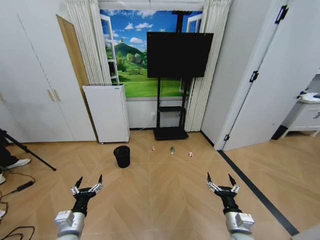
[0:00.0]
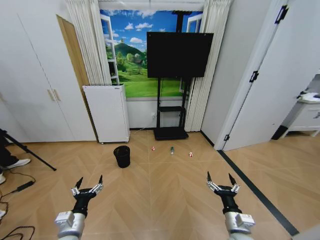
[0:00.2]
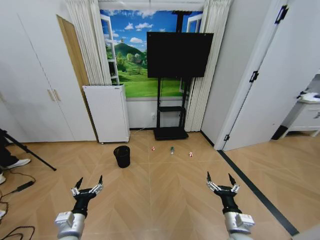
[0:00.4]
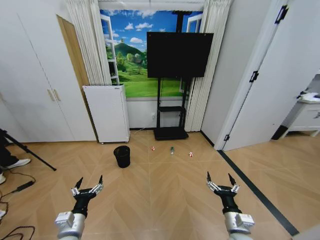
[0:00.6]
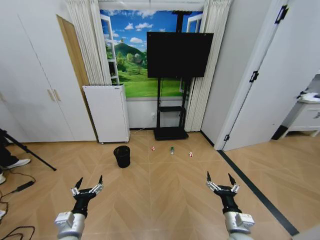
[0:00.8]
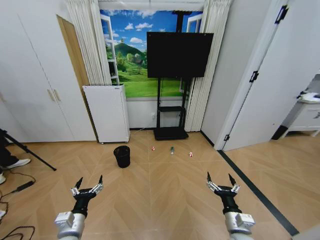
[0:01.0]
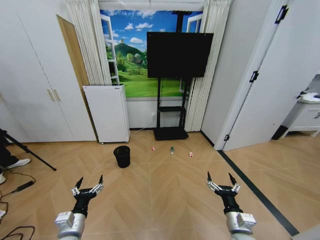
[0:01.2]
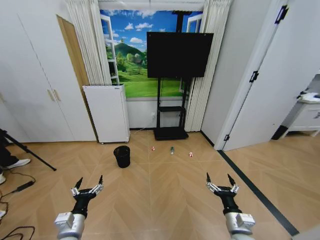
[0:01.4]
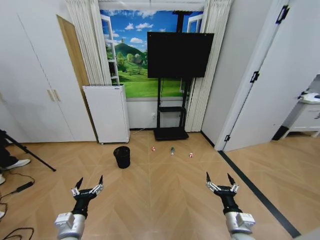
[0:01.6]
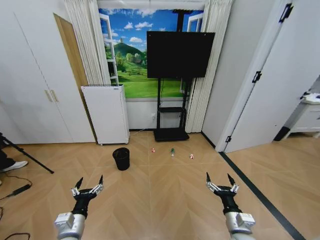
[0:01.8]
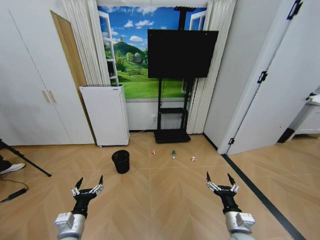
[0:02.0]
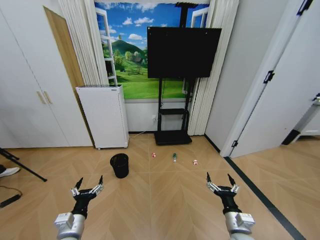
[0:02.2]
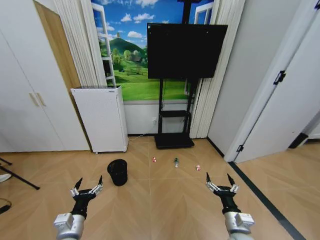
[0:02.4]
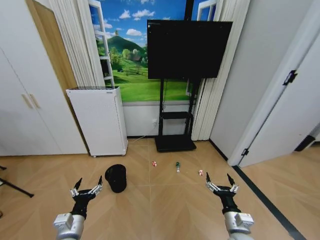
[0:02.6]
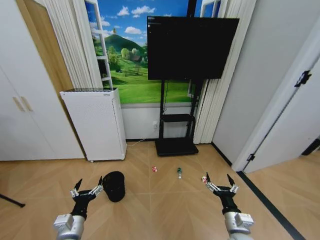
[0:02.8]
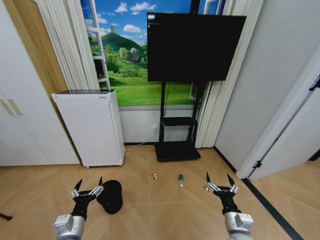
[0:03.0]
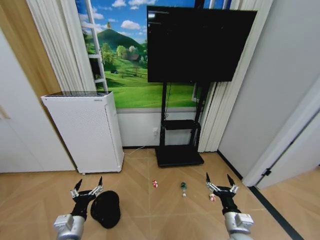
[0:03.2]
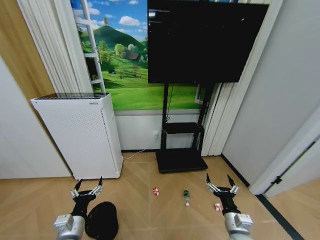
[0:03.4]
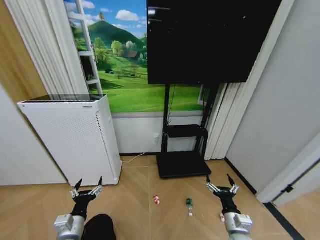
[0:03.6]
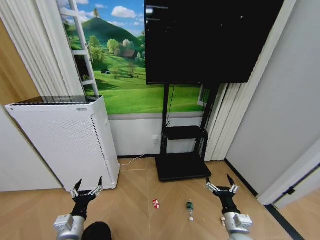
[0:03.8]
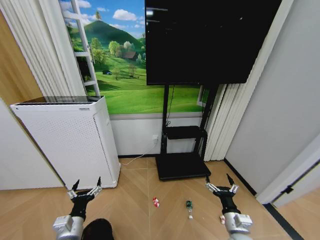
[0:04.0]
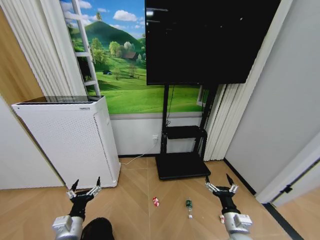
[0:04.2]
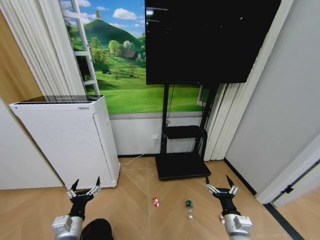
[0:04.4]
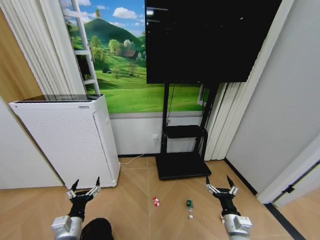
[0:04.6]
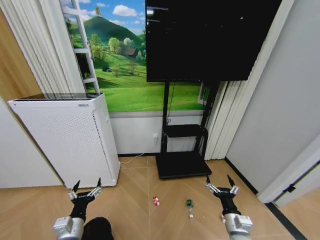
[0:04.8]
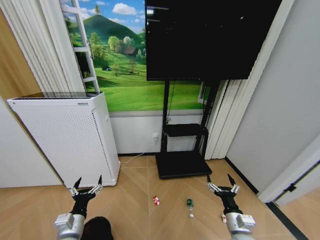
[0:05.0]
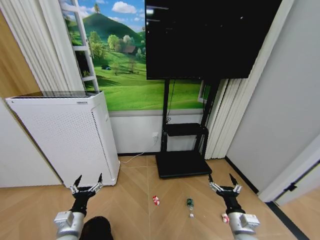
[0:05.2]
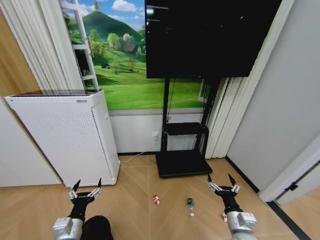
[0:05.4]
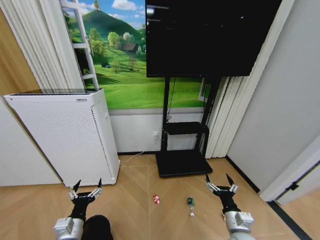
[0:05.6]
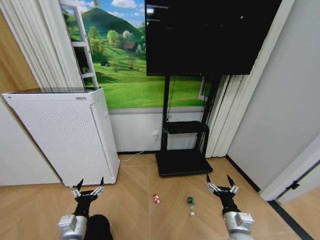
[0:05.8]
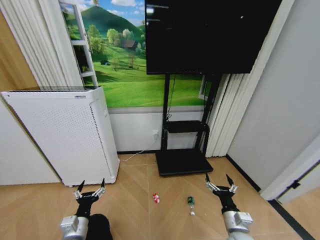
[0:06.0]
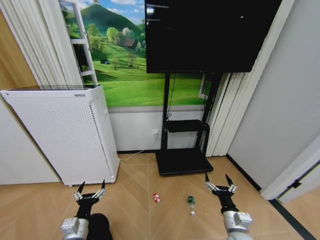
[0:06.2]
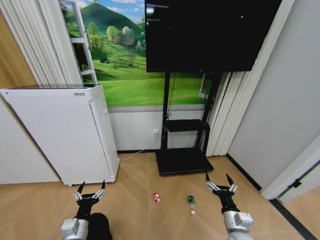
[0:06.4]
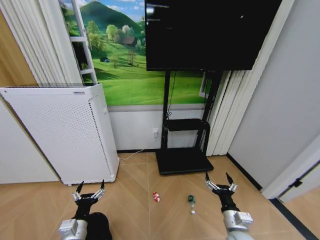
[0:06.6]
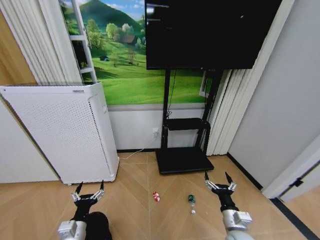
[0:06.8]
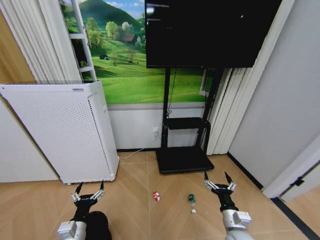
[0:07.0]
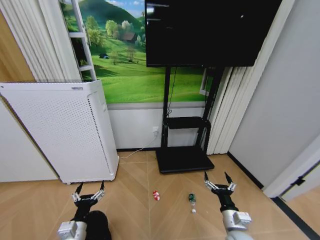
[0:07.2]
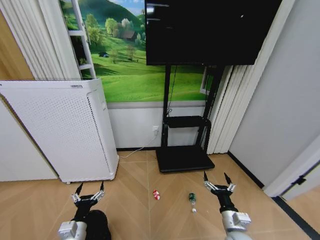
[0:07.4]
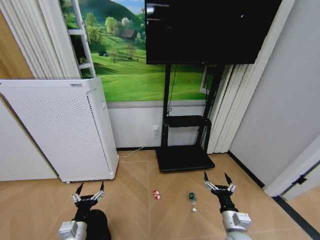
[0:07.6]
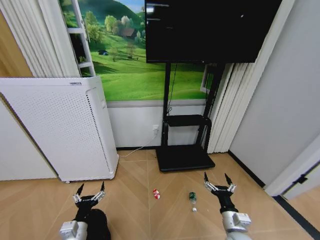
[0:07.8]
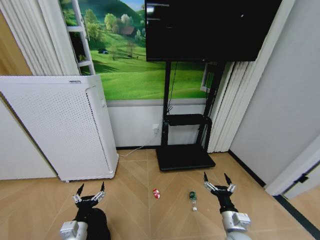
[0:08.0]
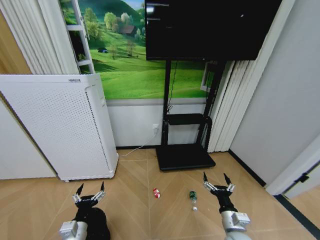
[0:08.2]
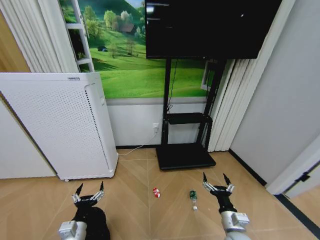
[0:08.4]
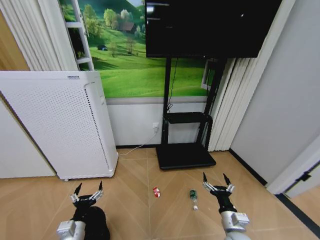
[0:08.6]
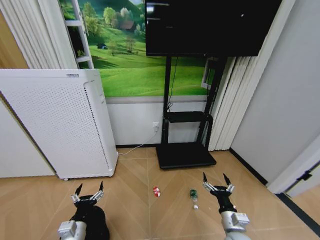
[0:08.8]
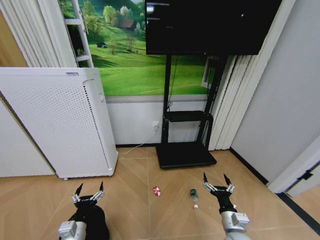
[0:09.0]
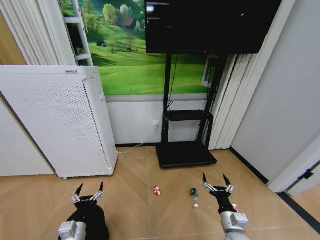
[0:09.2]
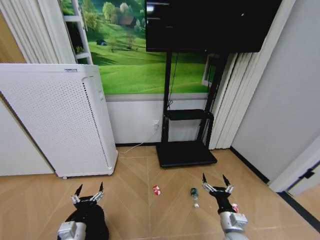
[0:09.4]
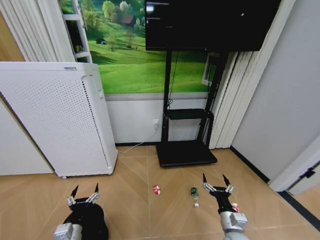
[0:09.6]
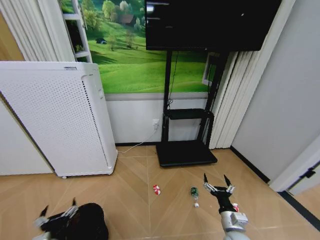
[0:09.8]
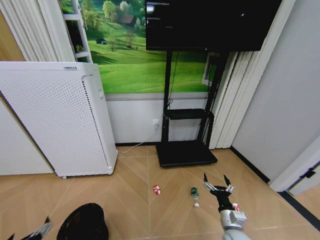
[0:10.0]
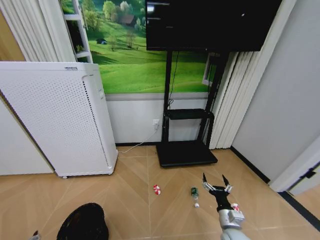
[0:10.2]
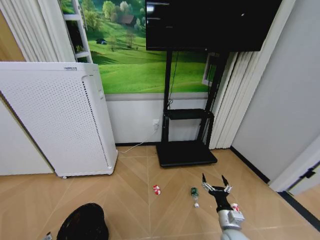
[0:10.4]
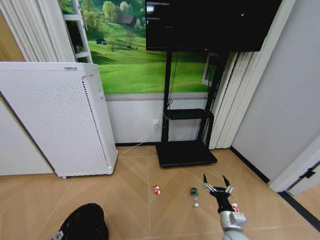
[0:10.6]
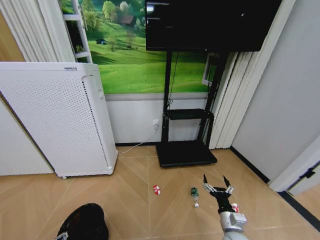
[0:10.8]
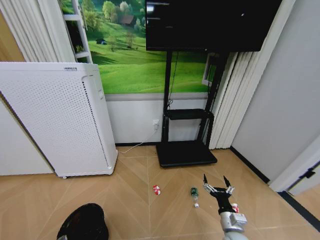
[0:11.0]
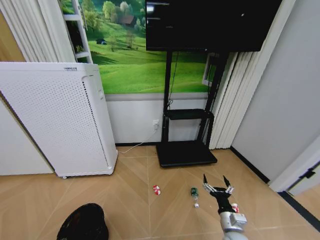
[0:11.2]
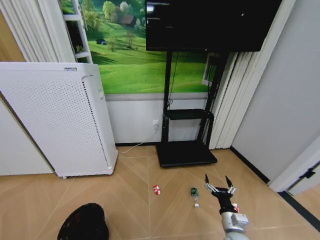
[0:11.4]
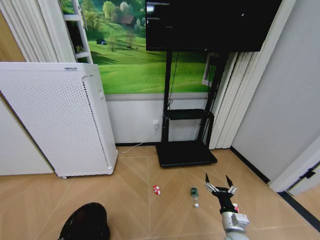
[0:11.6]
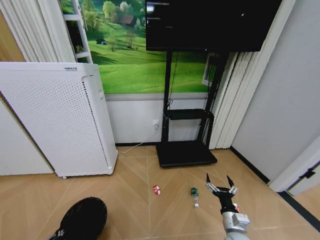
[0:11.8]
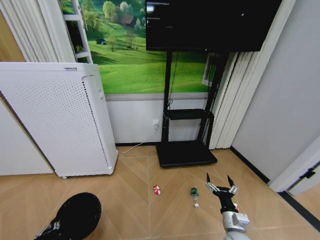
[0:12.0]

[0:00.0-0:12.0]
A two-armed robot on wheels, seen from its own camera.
Task of the whole recording: Pick up the trash bin and place the garbage on the floor into it.
0:04.4 to 0:07.6: The grippers make only small movements.
0:07.6 to 0:09.0: Both grippers stay put.
0:09.0 to 0:10.4: The left gripper goes about 15 cm to the left and backward.
0:10.4 to 0:12.0: The left gripper closes.

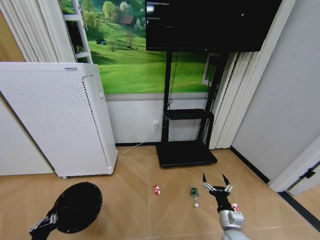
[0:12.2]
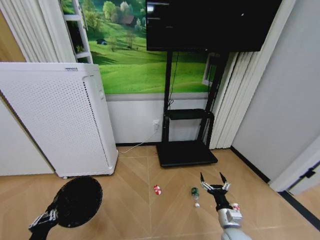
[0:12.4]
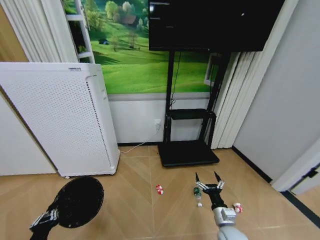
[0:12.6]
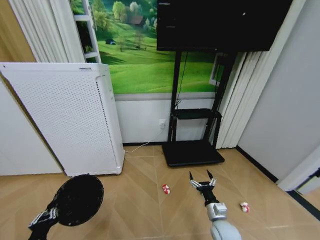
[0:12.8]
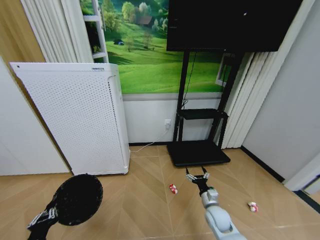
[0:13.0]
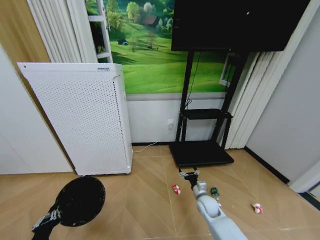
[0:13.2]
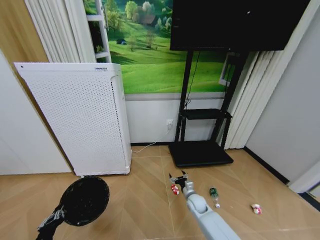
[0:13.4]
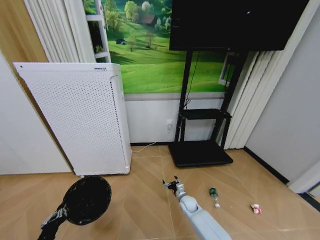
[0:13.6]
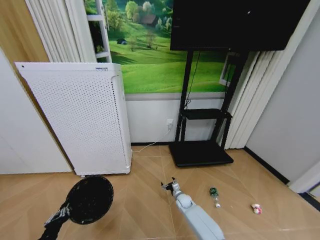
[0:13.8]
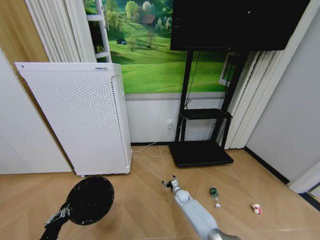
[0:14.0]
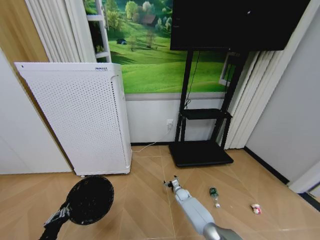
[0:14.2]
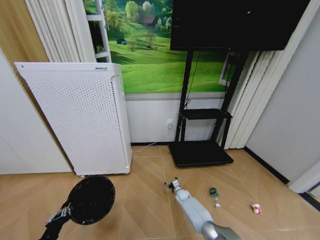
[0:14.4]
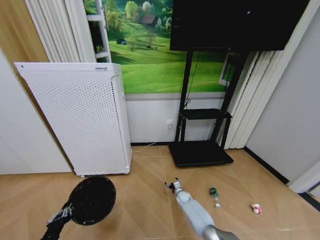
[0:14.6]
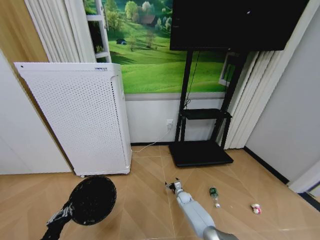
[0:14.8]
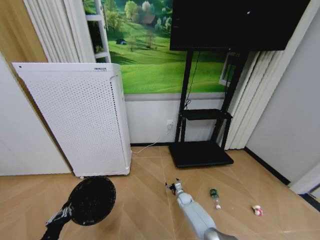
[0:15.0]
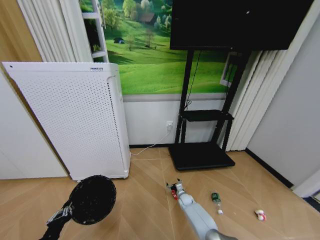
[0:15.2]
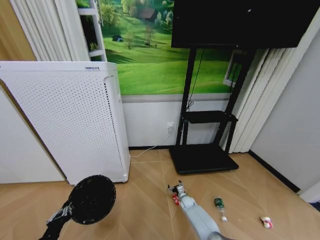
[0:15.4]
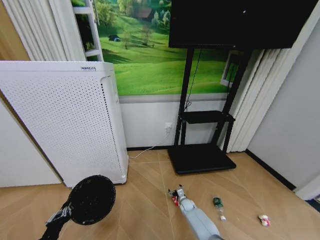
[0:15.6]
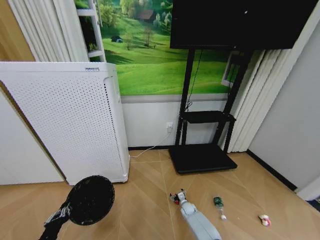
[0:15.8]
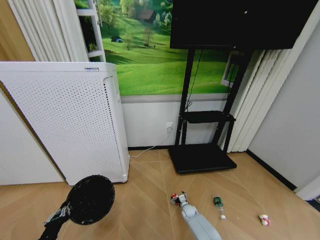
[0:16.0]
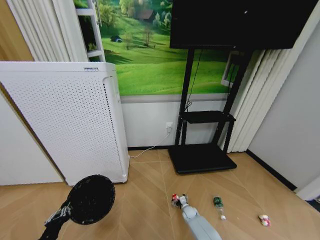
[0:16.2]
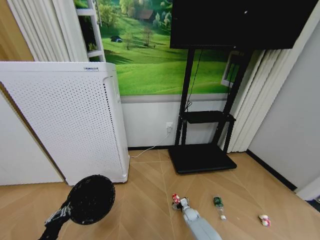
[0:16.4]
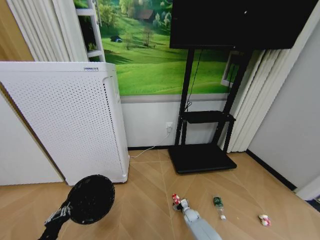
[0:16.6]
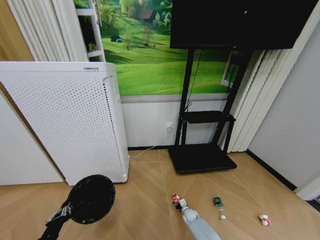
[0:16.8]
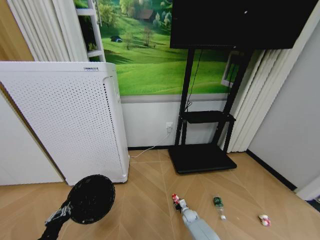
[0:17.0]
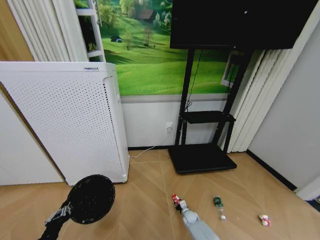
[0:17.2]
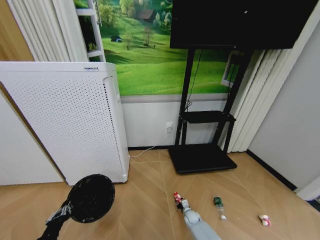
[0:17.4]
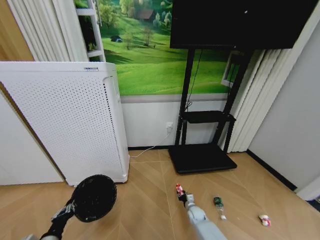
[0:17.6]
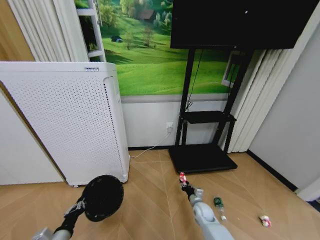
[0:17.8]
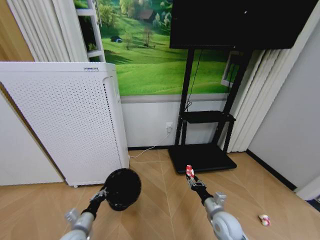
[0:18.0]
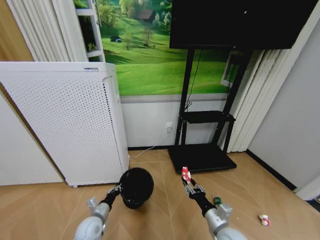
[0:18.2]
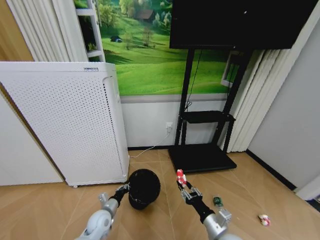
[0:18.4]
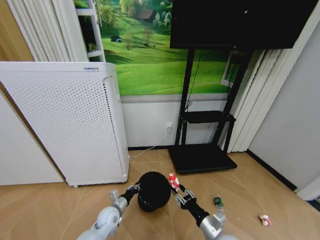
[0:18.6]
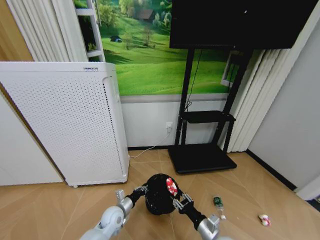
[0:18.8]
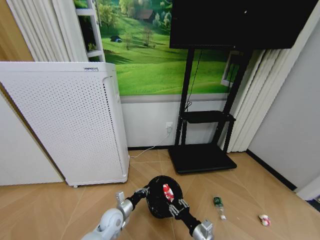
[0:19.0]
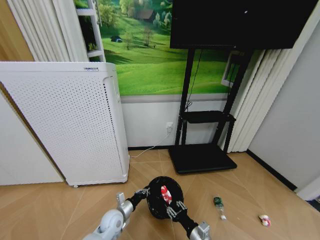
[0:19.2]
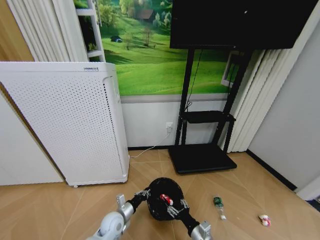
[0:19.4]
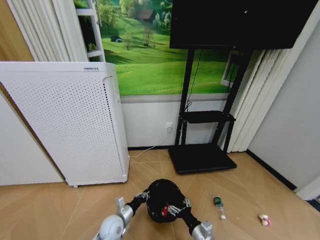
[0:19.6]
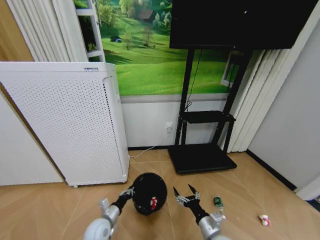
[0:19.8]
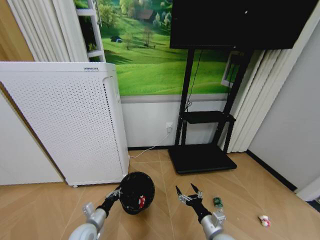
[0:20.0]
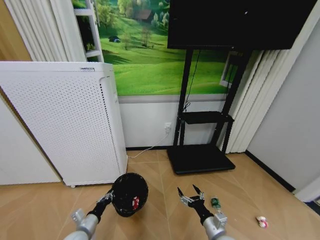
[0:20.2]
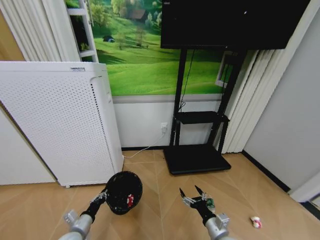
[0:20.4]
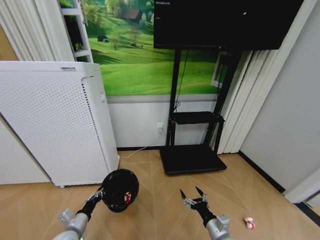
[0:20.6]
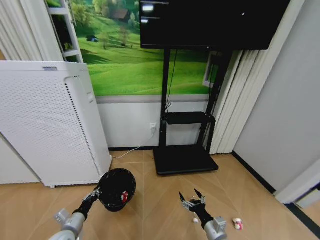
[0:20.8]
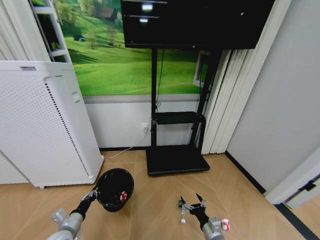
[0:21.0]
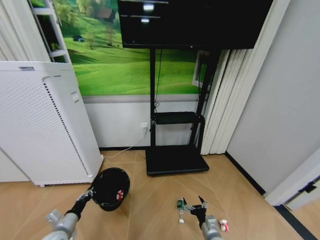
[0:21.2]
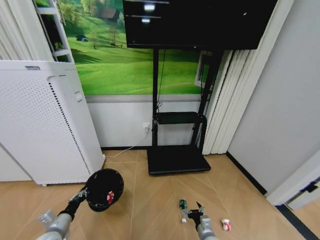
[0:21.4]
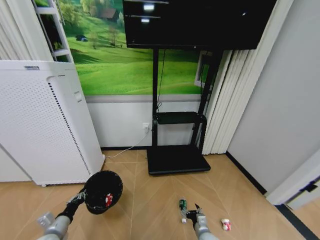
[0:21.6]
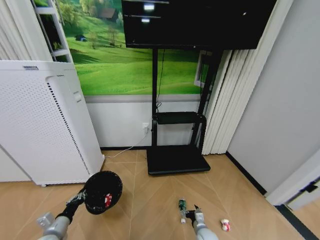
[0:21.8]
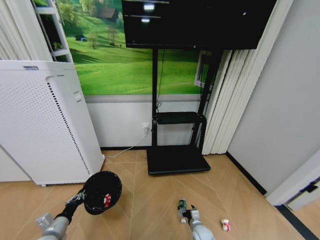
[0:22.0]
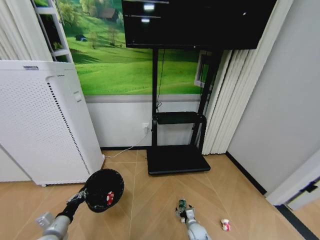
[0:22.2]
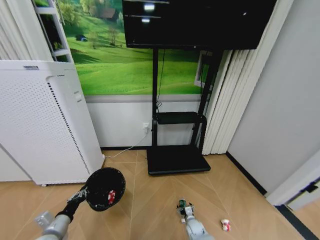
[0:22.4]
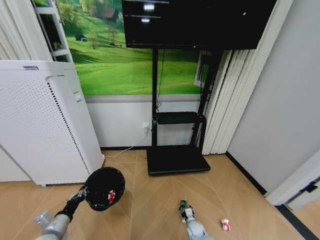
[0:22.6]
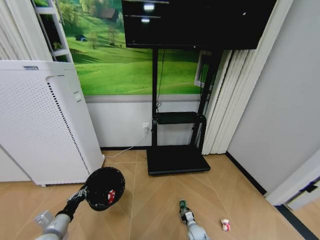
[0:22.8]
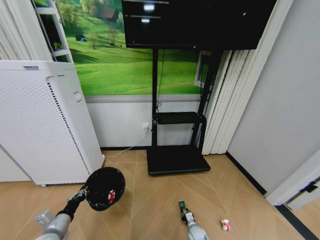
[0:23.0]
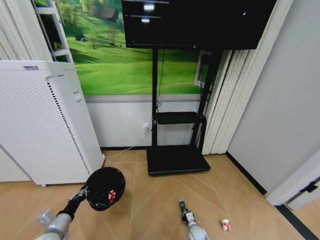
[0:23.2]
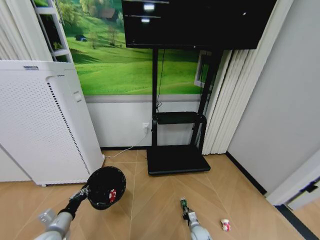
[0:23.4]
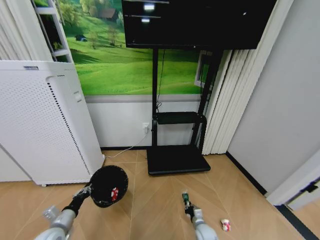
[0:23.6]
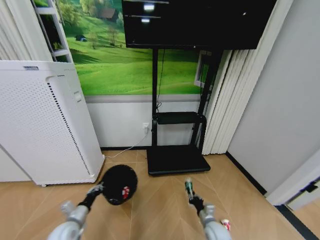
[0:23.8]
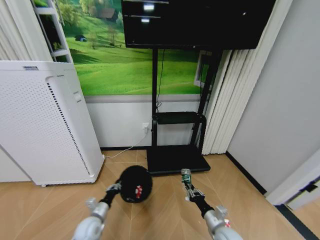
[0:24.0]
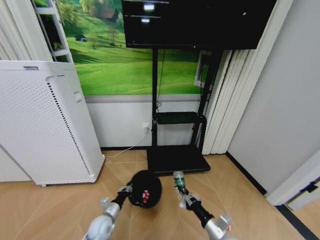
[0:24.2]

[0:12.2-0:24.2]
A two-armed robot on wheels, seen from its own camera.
Task of the whole recording: Pick up the trash bin and place the garbage on the floor into it.
0:12.2 to 0:13.8: The right gripper travels forward, downward and to the left by approximately 30 cm.
0:13.8 to 0:15.2: The right gripper ends up some 5 cm from where it was.
0:15.2 to 0:16.6: The right gripper moves backward, roughly 5 cm.
0:16.6 to 0:18.2: The left gripper shifts some 20 cm forward, to the right and downward, while the right gripper heads upward and backward, covering some 35 cm, and closes up.
0:18.2 to 0:19.8: The right gripper shifts by some 5 cm, and opens up. The left gripper heads to the right, covering approximately 10 cm.
0:19.8 to 0:21.2: The right gripper moves downward, some 5 cm; the left gripper is displaced to the left by about 15 cm.
0:21.2 to 0:22.6: The right gripper goes roughly 20 cm downward and forward.
0:22.6 to 0:24.2: The right gripper is displaced upward and backward by roughly 25 cm, and closes up. Meanwhile the left gripper goes approximately 20 cm to the right, downward and forward.
